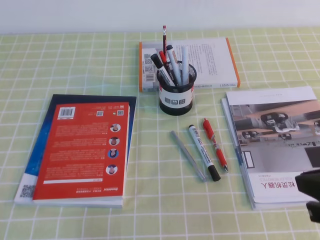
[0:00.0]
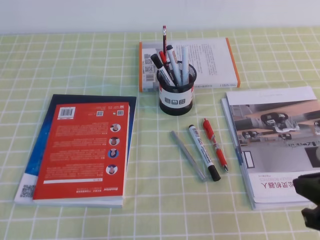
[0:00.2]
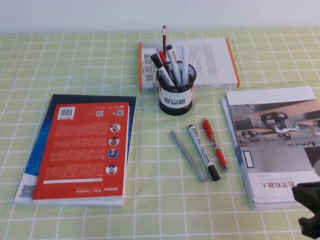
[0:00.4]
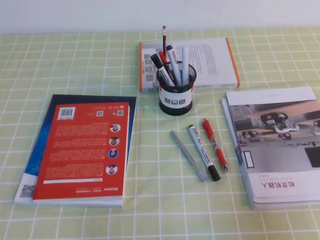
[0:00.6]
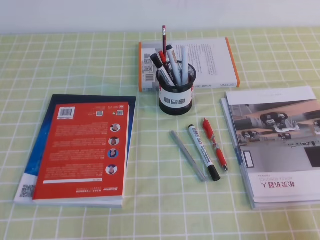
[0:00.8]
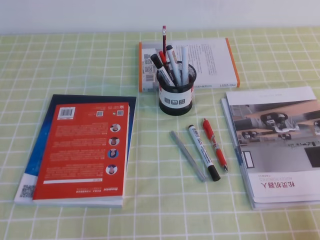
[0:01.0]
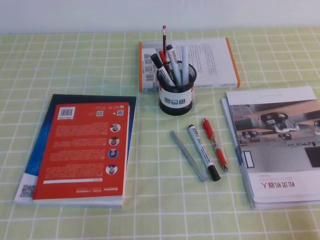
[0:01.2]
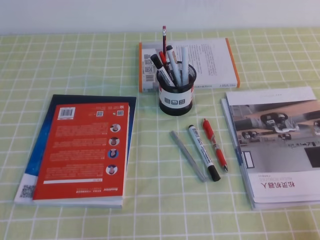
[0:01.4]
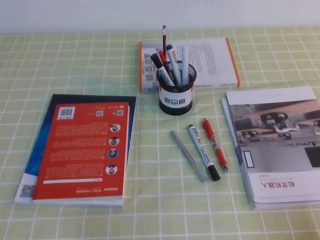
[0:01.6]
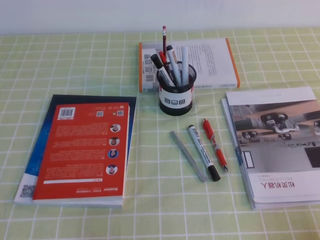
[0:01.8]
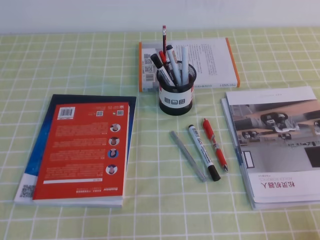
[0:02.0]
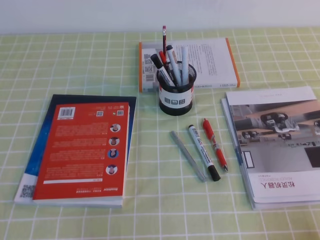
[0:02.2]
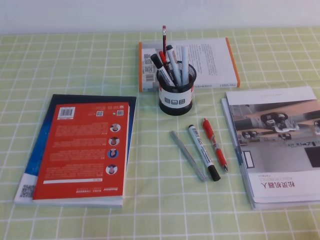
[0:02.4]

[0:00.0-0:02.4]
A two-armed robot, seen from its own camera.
Step, 0:00.0 to 0:02.4: Pick up the pen from the pen holder.
0:00.0 to 0:01.2: The right gripper heads downward, to the right and backward, covering some 15 cm.
